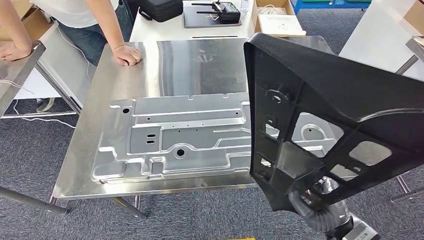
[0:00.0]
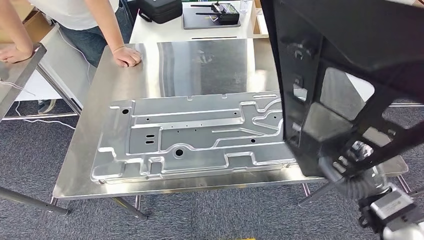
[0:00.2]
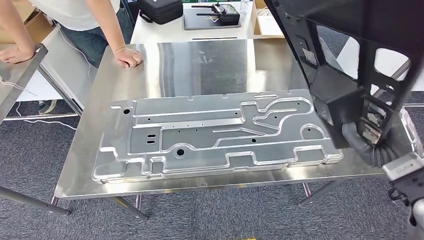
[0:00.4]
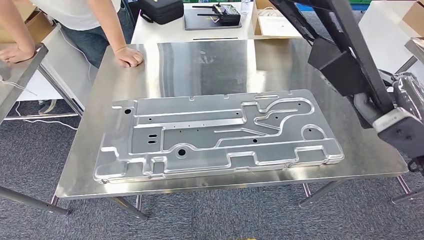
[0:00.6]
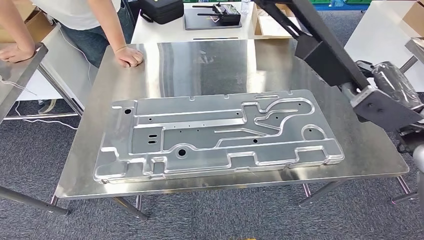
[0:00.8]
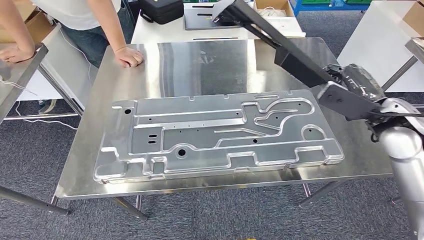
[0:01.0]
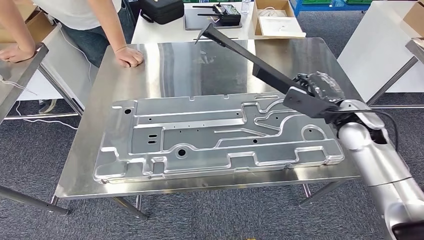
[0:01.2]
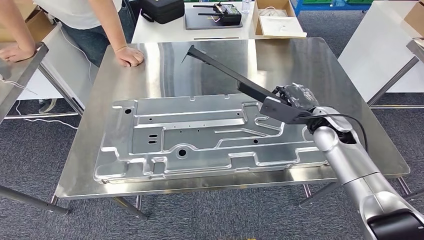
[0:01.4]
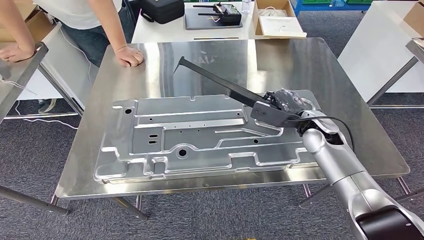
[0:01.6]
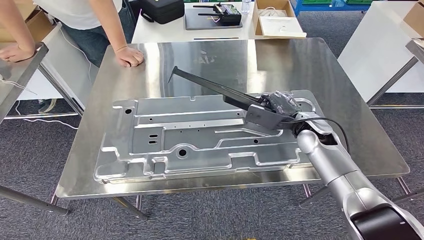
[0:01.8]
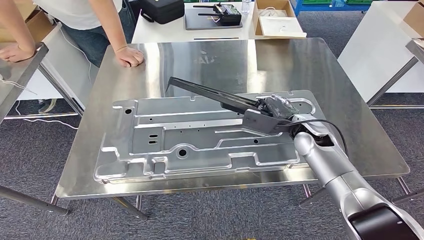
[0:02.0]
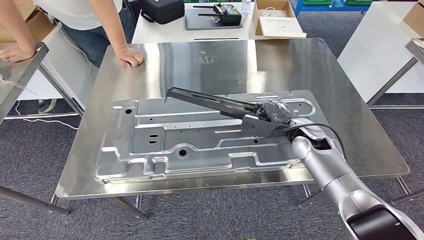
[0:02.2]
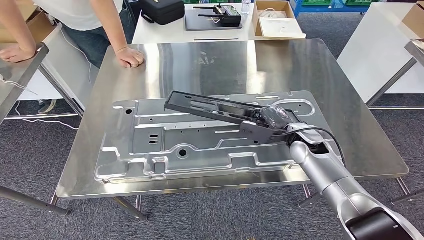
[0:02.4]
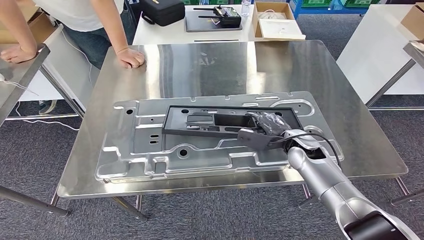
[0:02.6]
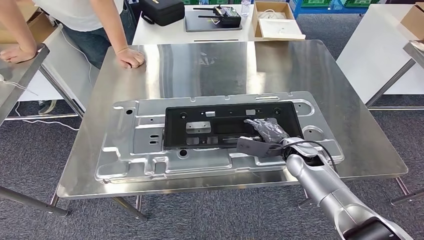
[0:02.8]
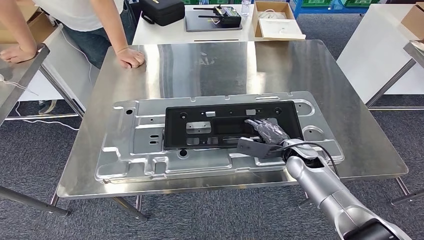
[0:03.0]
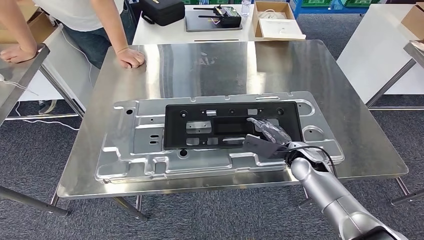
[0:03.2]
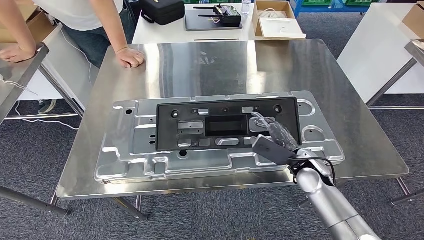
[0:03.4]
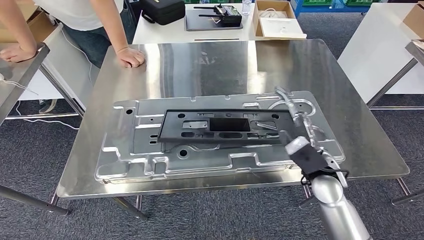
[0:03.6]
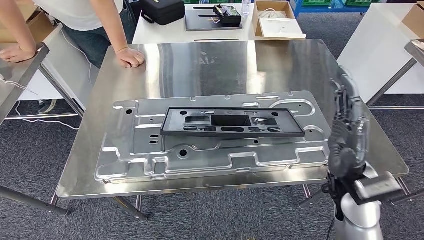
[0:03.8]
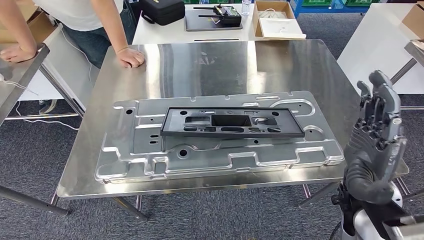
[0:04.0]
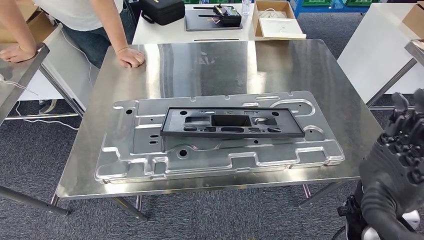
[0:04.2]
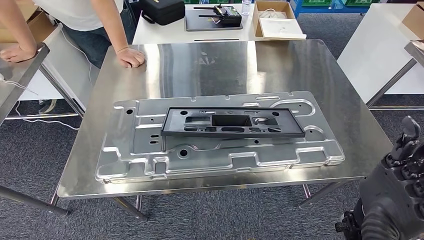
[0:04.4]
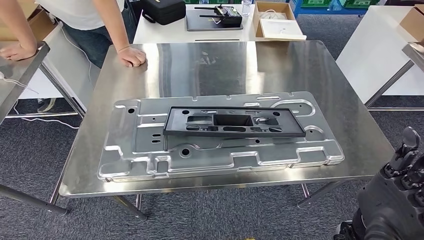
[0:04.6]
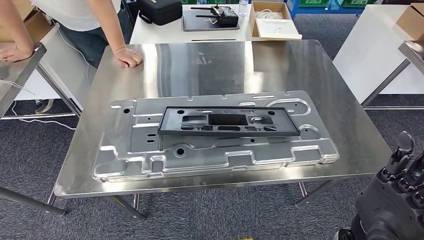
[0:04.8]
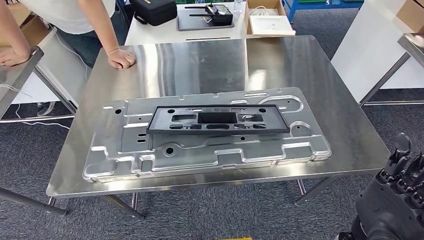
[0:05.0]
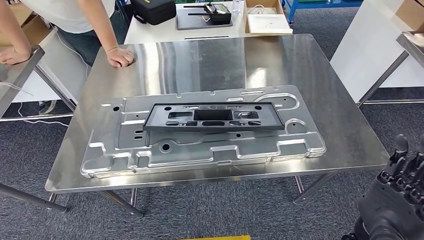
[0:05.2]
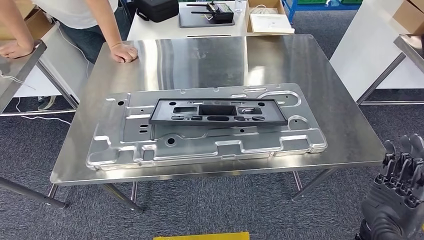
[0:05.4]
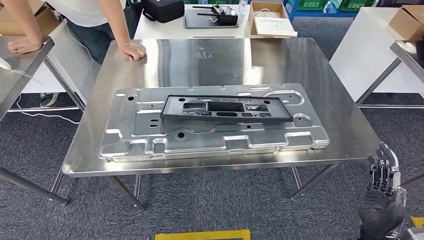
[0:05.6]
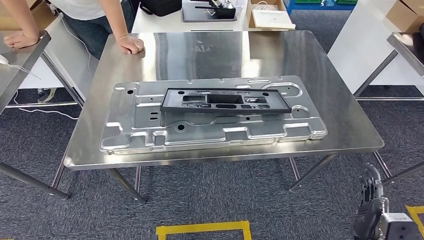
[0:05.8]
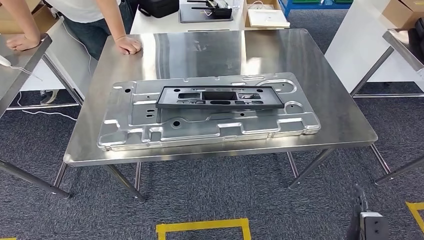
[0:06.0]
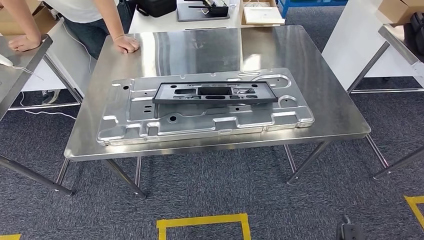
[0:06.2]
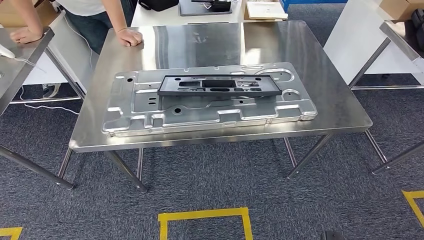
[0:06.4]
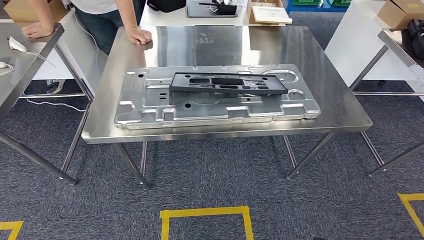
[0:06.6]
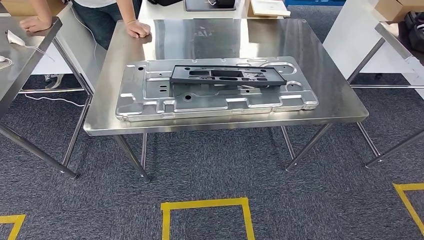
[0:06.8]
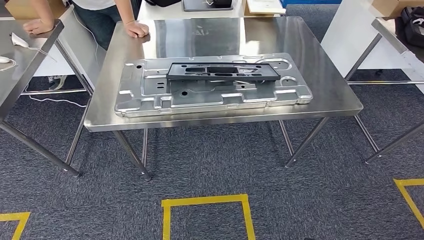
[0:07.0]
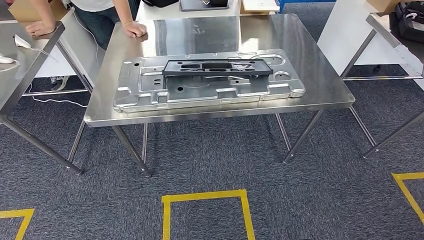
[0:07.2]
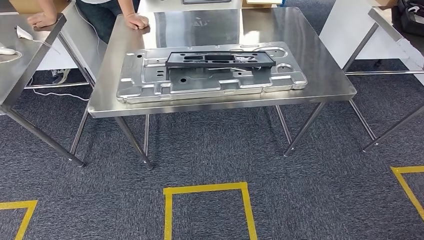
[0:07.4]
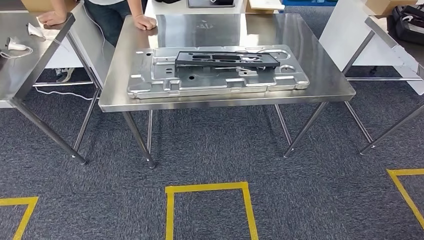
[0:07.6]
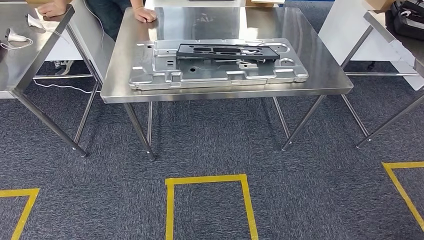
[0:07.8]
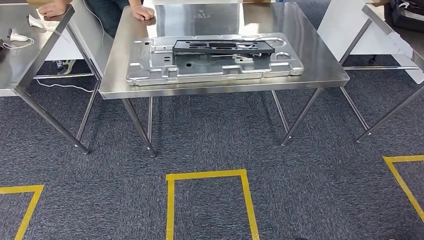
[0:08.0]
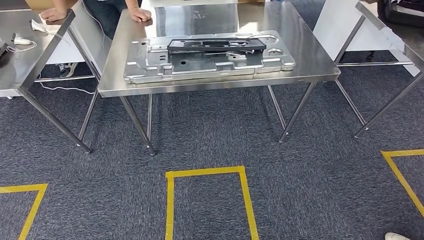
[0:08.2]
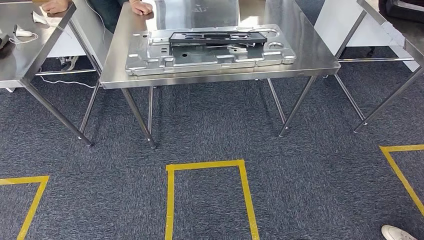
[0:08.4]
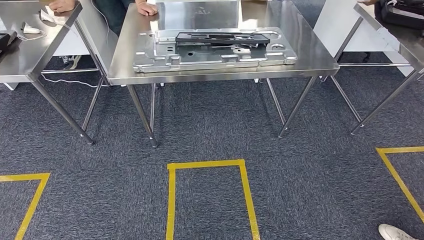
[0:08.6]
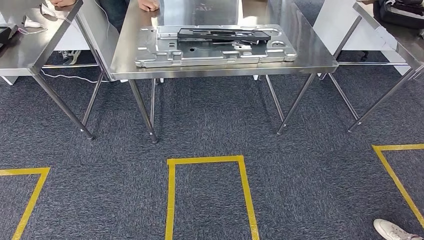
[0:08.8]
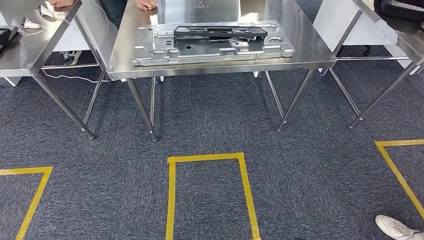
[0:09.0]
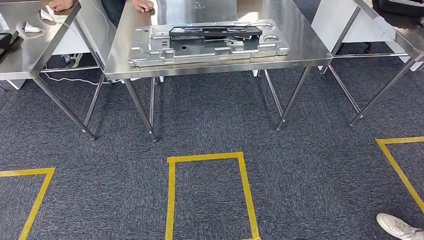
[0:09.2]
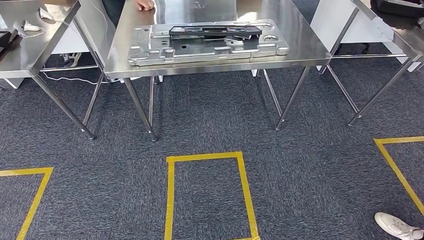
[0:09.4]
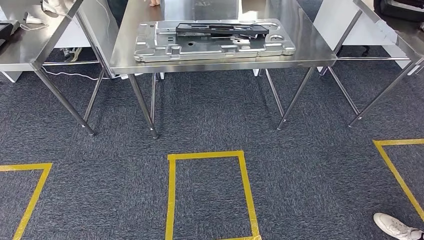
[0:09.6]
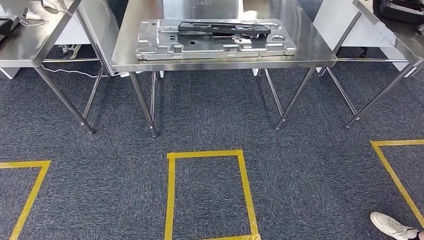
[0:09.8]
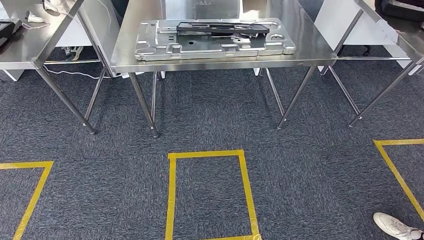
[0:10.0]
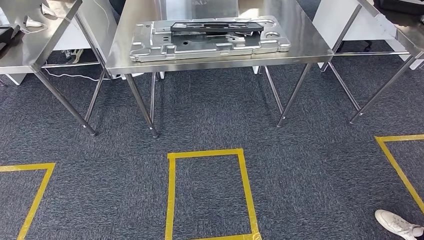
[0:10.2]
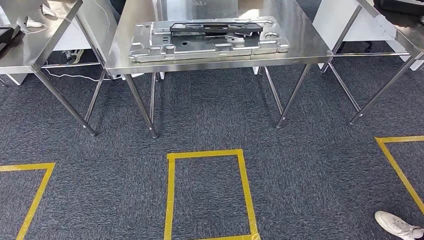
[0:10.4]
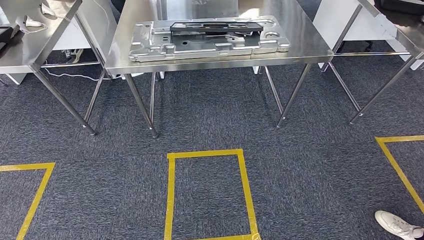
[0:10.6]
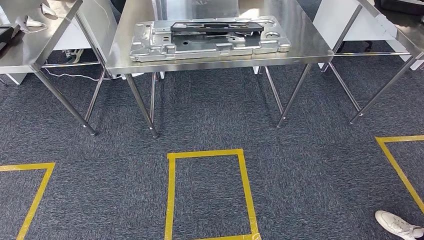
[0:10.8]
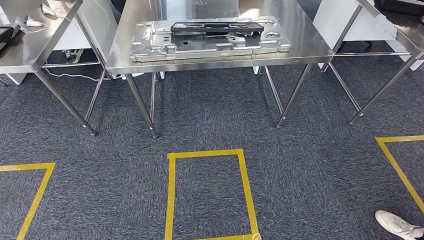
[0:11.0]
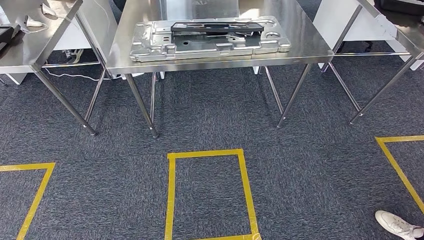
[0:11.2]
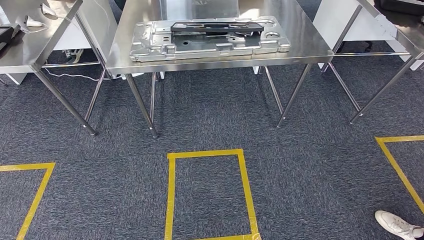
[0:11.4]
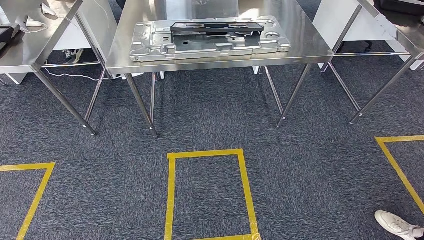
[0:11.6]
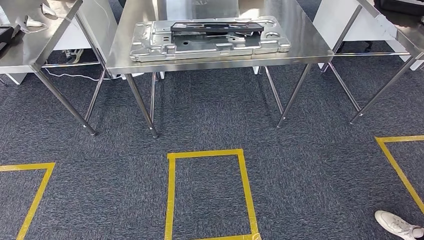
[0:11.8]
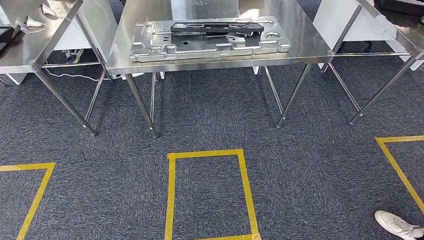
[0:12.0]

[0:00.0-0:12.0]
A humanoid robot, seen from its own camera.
Step, 0:01.6 to 0:06.8: Insert the large material into the corresponding slot on the workbench.
Step, 0:08.8 to 0:12.0: Move to the initial position of the shelf.
0:03.0 to 0:04.4: The right hand goes approximately 25 cm backward and upward.
0:09.0 to 0:12.0: The hands make only small movements.

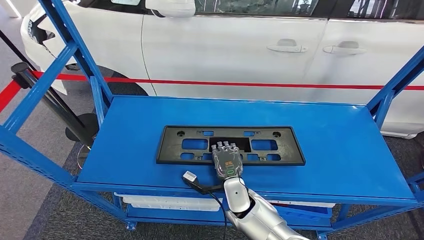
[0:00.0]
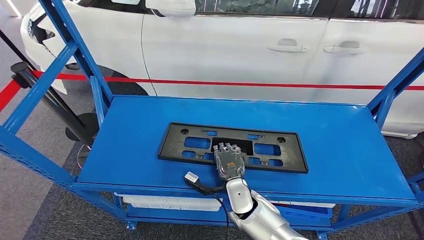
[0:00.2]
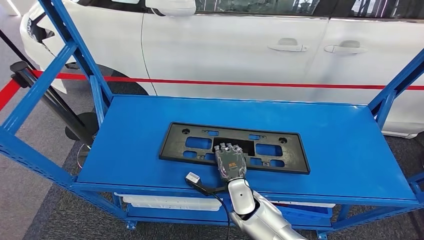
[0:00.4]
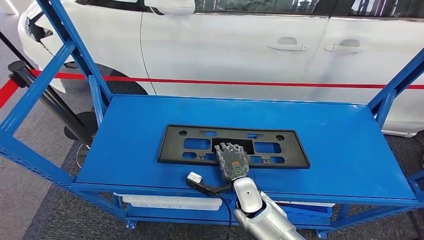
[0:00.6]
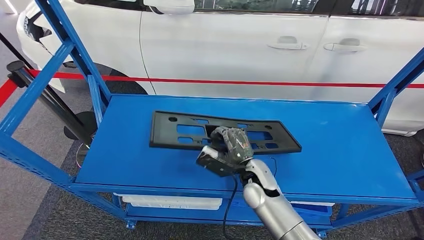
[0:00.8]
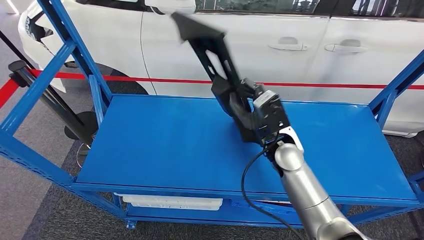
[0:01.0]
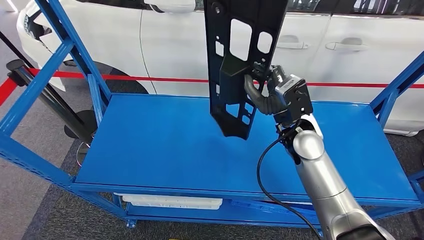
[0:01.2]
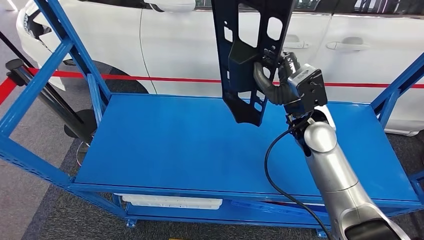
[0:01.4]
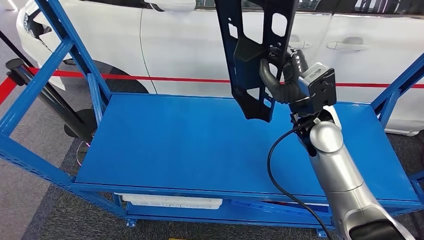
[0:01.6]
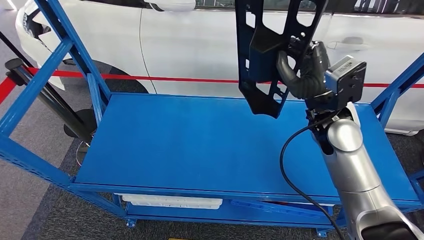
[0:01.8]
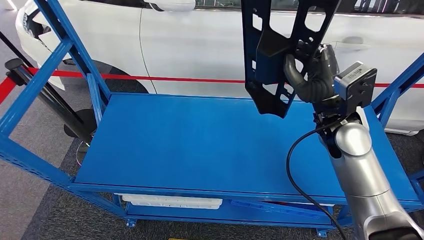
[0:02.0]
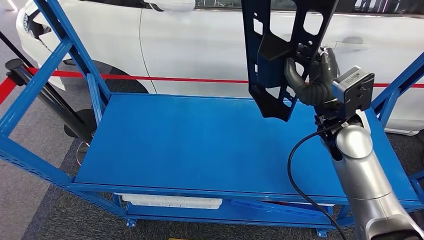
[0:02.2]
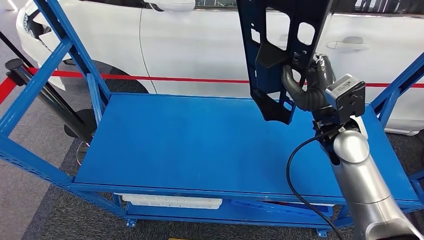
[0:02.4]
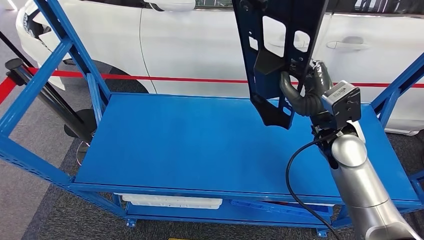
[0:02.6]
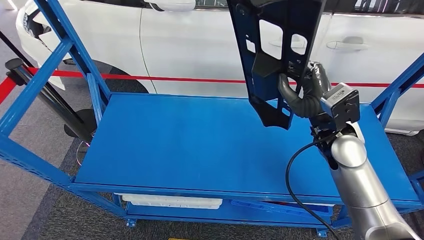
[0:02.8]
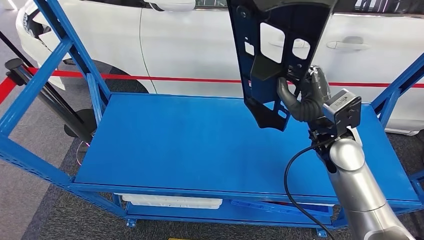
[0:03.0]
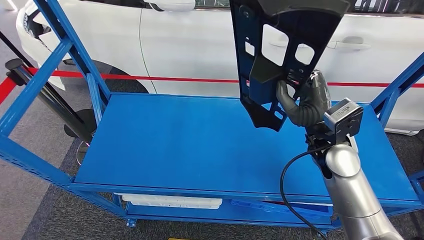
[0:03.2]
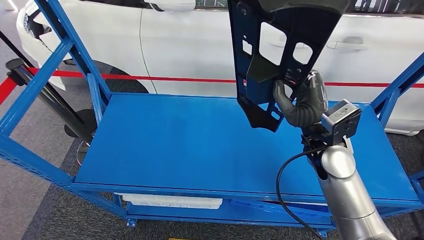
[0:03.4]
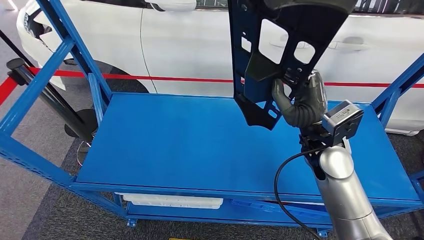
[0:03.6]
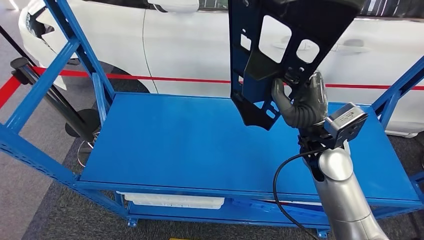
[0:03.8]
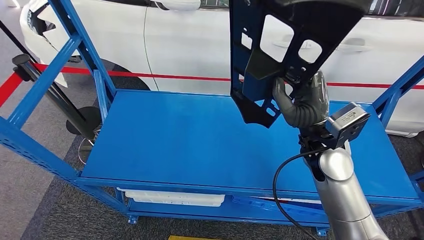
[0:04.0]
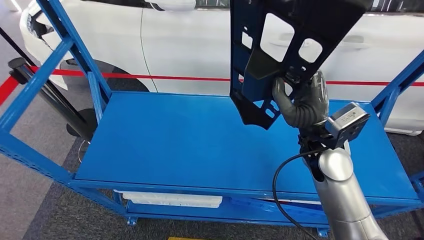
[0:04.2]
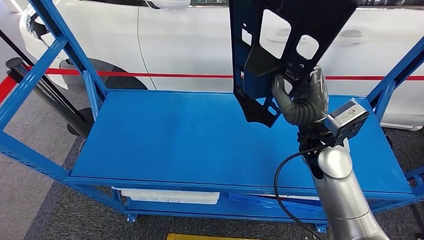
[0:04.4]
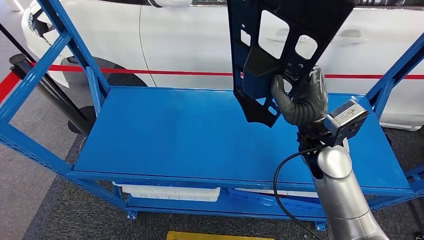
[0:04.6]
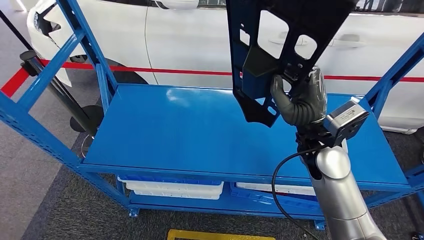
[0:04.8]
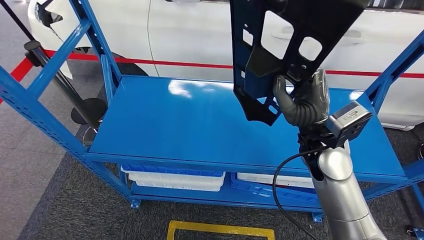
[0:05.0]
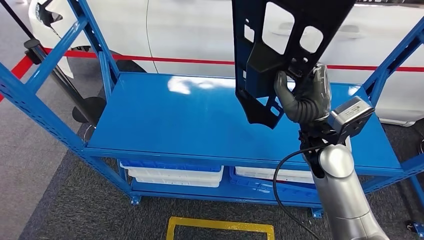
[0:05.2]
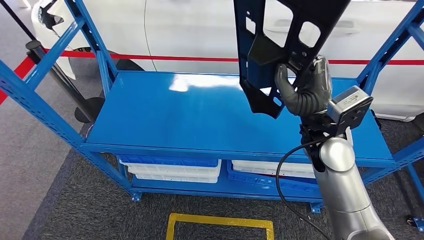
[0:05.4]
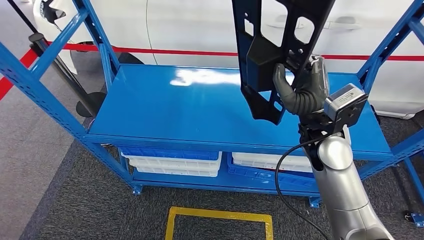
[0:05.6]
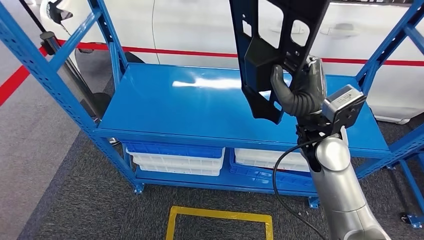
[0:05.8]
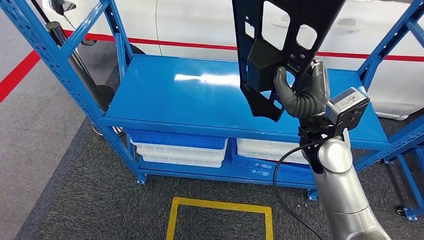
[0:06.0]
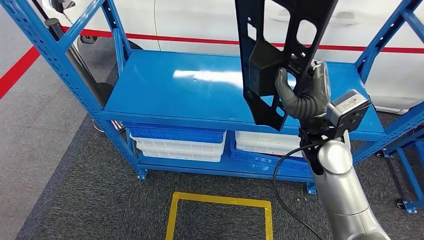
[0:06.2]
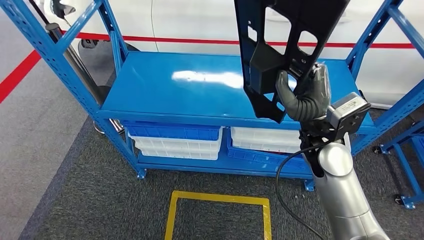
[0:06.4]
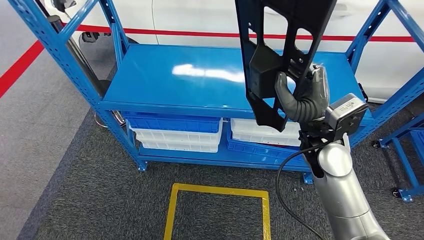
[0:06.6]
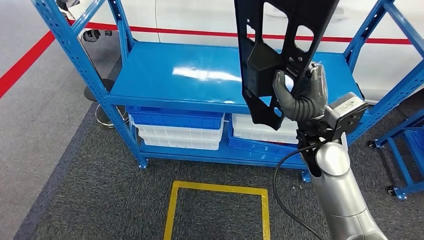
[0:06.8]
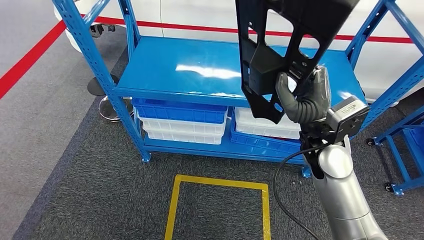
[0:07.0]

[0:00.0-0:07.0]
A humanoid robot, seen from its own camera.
Step, 0:00.0 to 0:06.0: Pick up the large material from the shelf.
0:01.4 to 0:02.8: The right hand shifts by some 5 cm.
